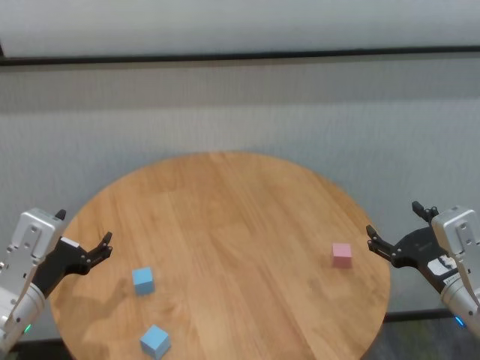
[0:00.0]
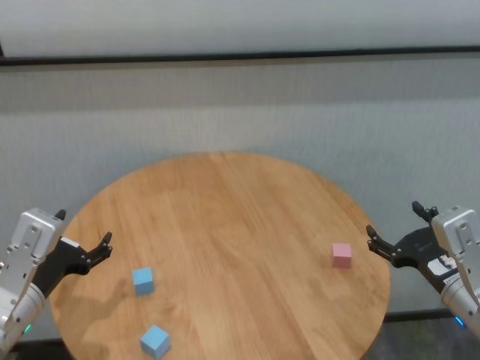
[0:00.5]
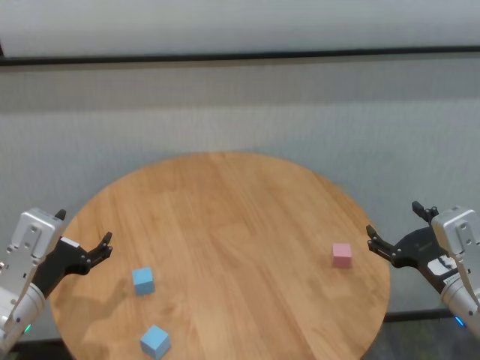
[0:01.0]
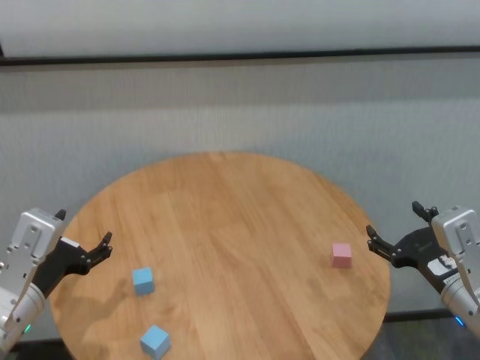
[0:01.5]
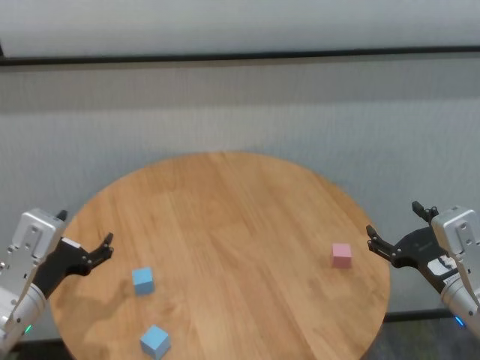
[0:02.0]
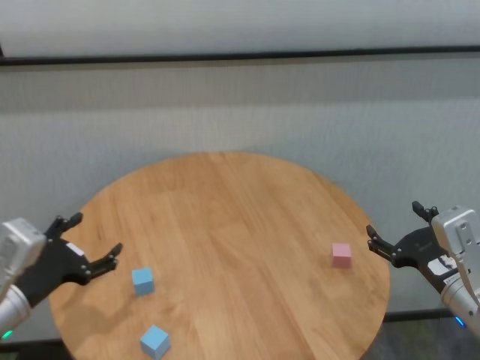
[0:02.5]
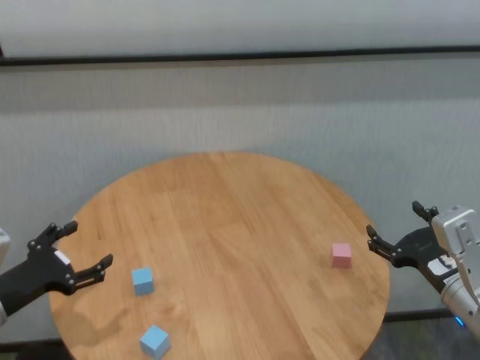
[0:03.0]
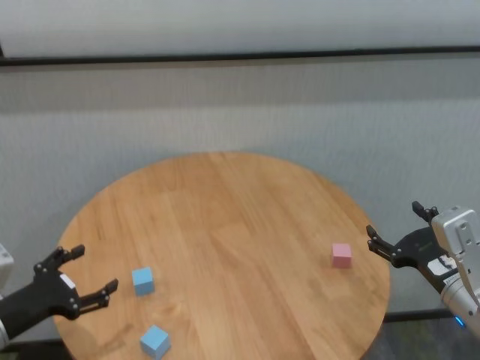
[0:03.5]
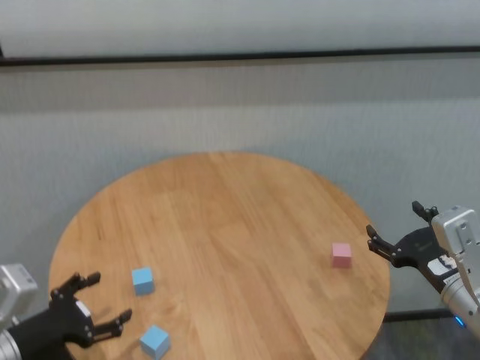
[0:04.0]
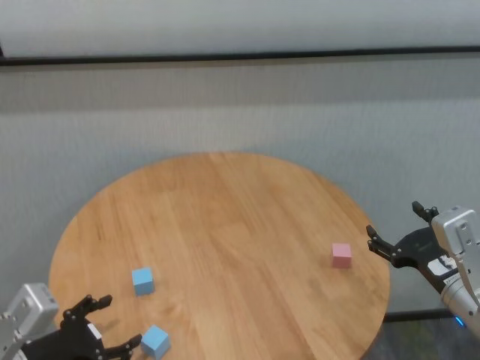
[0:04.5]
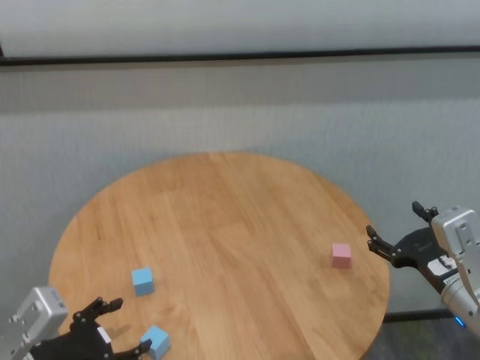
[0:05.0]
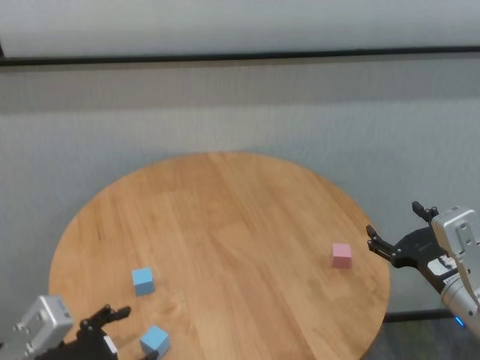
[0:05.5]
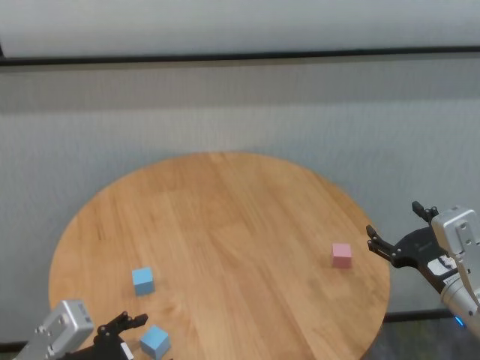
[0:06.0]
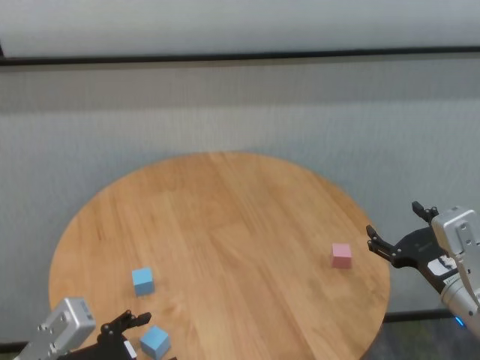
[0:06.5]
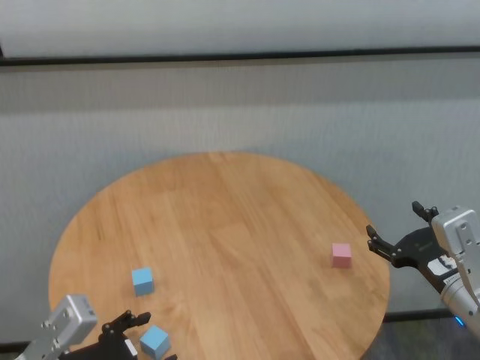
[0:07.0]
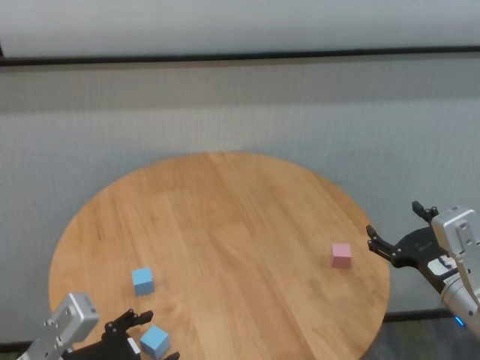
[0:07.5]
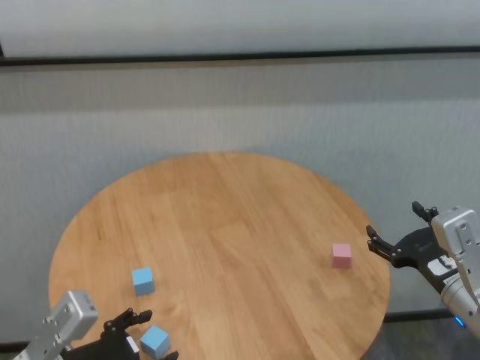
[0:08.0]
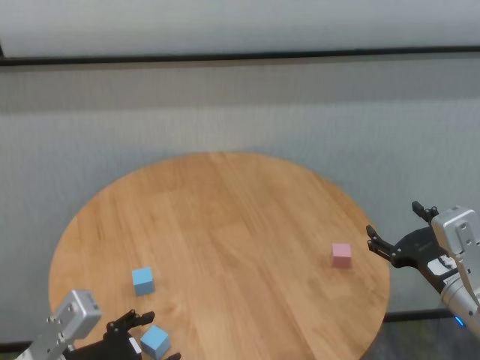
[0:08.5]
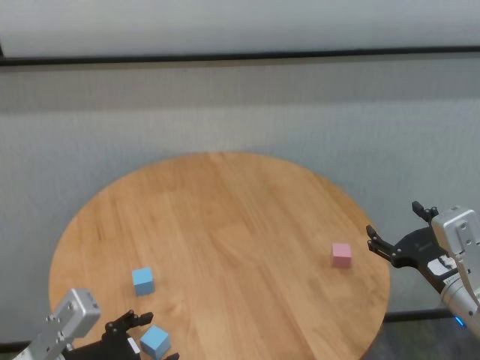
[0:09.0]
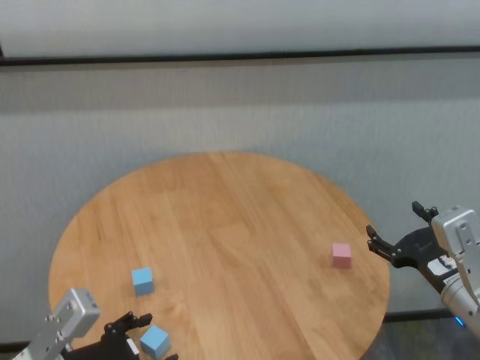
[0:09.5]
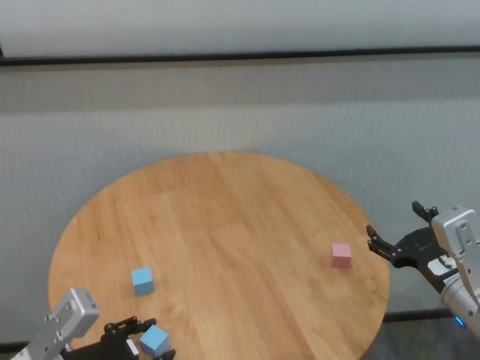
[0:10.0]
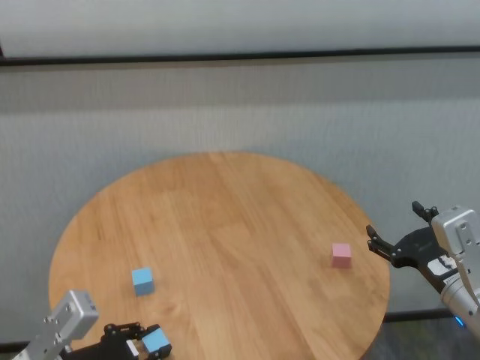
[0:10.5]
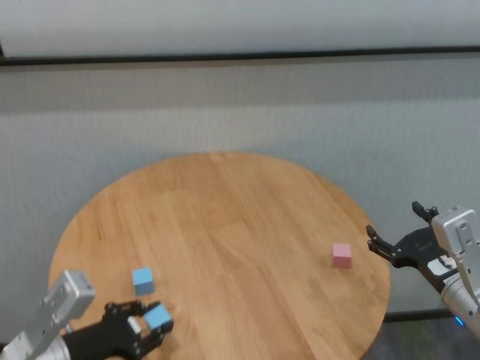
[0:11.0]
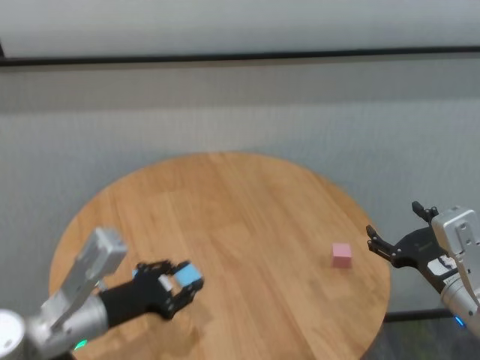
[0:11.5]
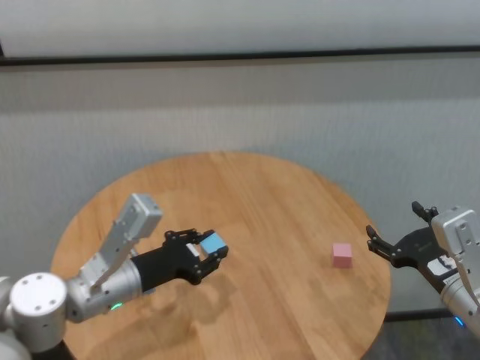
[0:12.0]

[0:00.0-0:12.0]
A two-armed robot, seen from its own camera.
Task of the whole recording: stack building blocks on the table.
Step, 0:00.0 to 0:10.0: Grasp the blue building block with left gripper.

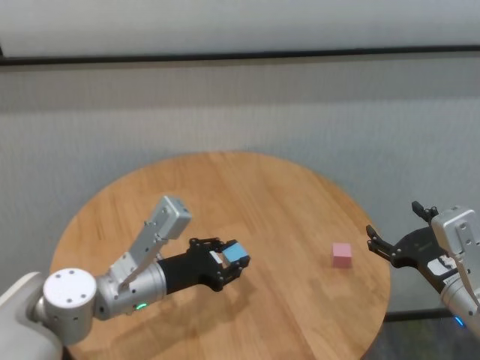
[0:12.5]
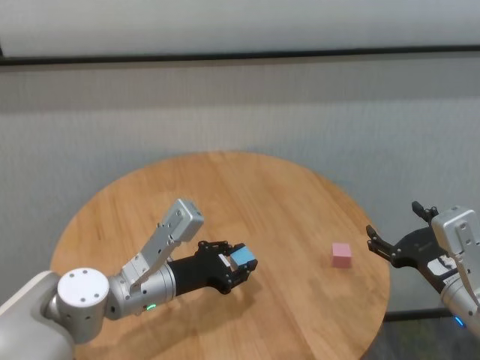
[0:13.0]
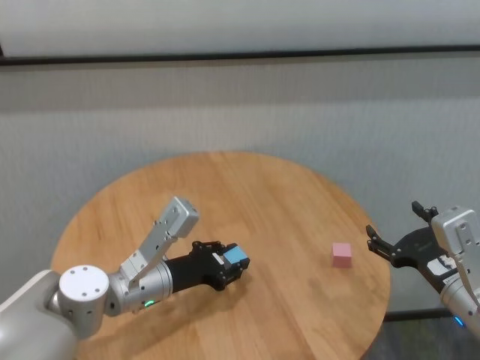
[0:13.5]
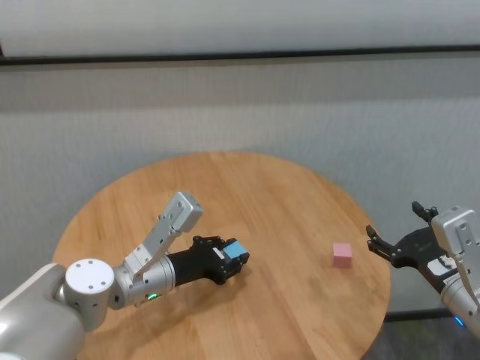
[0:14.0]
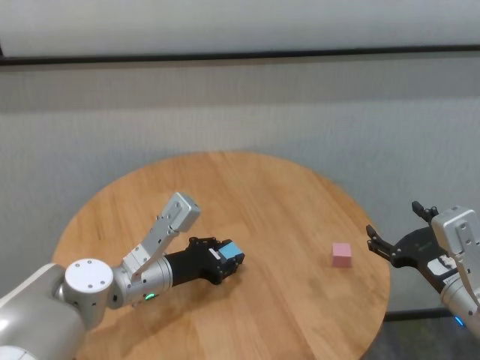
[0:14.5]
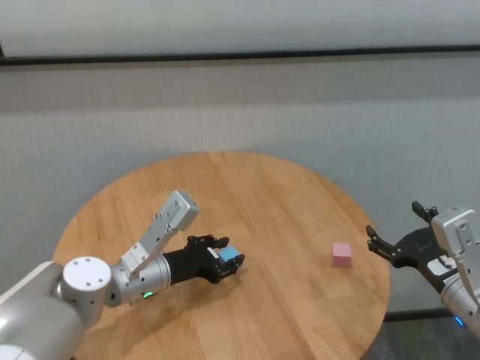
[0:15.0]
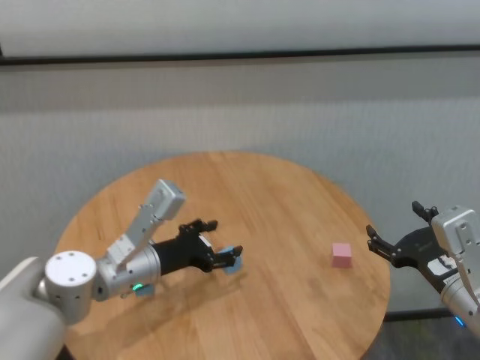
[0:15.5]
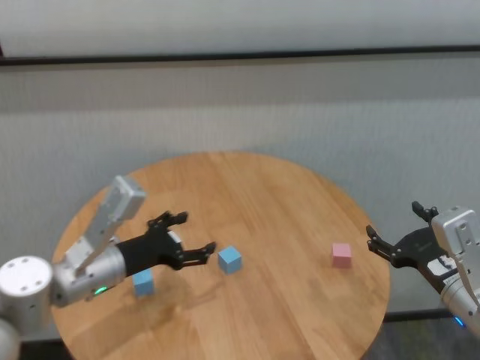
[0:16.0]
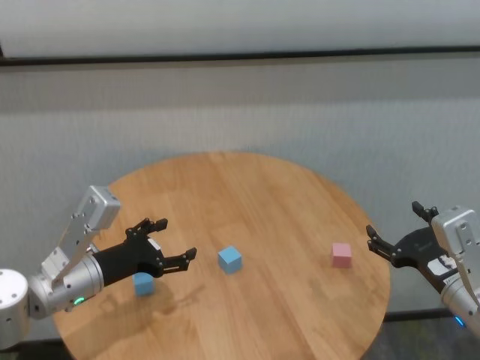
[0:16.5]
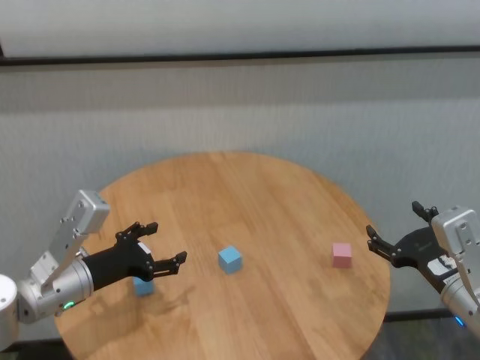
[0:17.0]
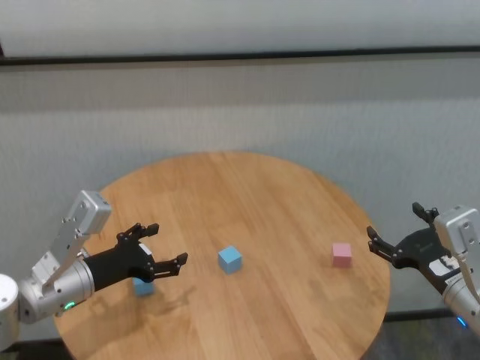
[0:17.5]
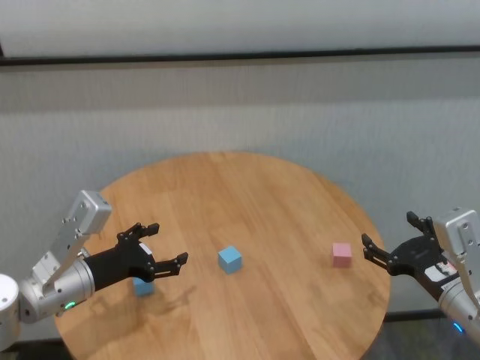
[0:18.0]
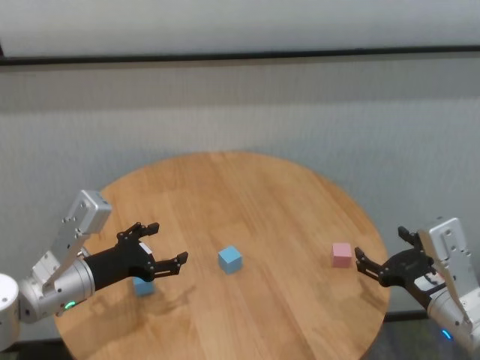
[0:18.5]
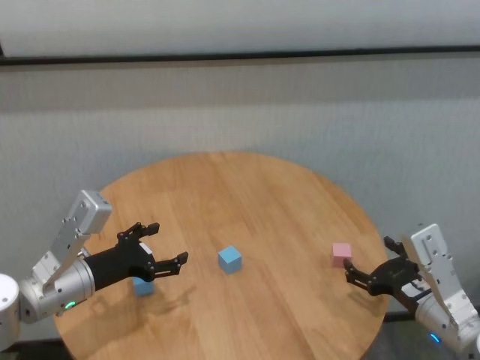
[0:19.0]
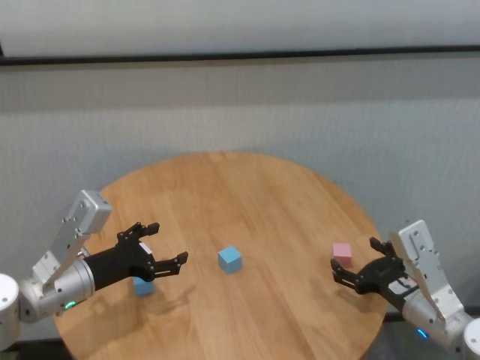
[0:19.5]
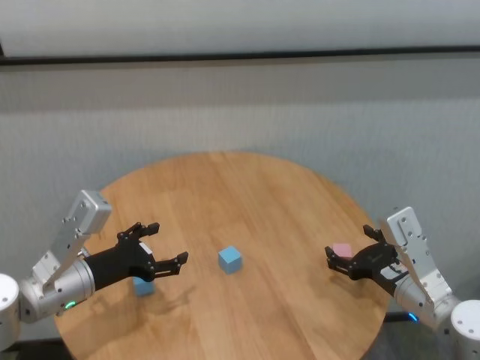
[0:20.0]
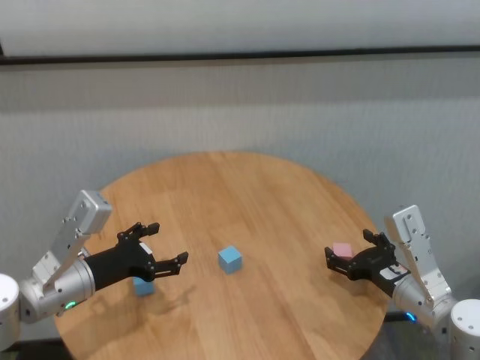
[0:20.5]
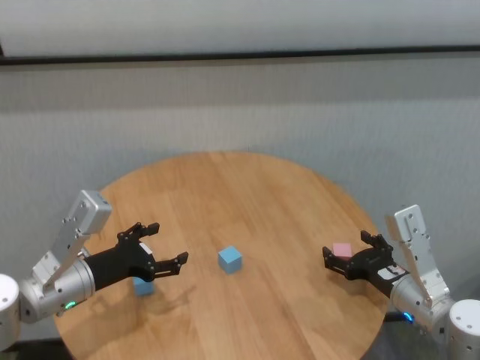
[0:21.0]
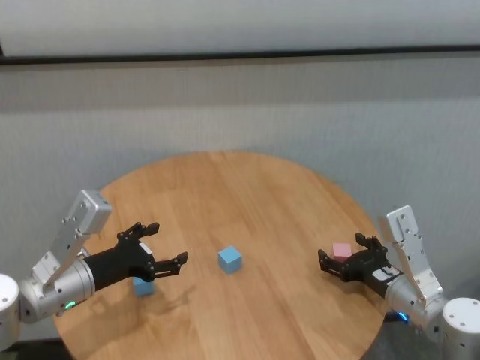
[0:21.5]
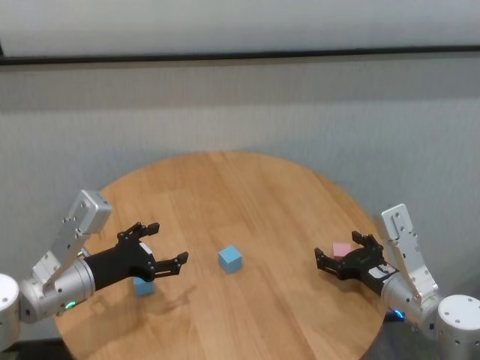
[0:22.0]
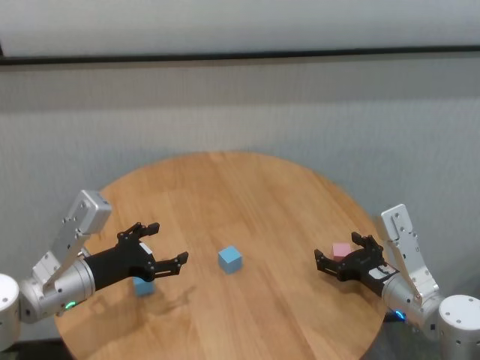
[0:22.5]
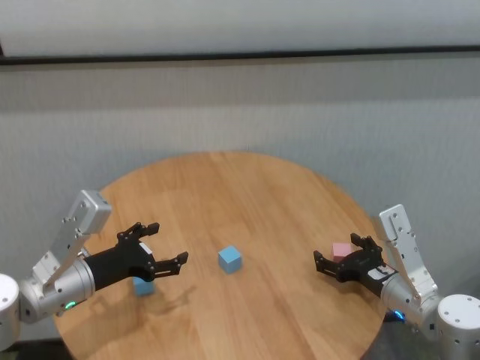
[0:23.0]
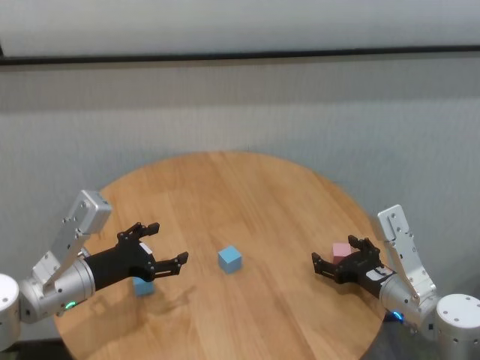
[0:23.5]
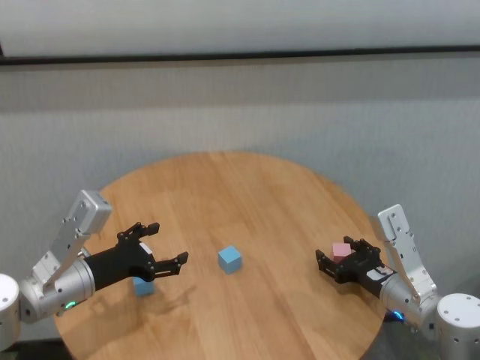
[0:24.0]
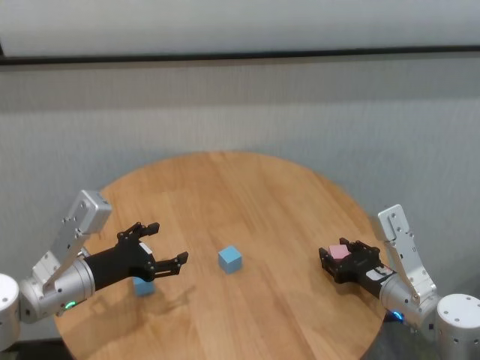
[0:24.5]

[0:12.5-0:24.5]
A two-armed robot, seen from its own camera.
Task of the whole recording: stack building blocks on the table.
Step, 0:12.5 to 0:15.0: Place the blue building block in the center of table with left gripper.
Step, 0:15.5 to 0:24.0: Grasp the pink building block with right gripper.

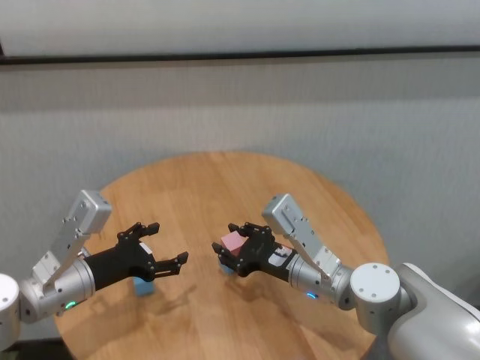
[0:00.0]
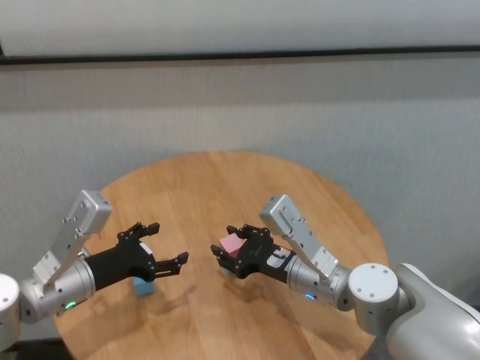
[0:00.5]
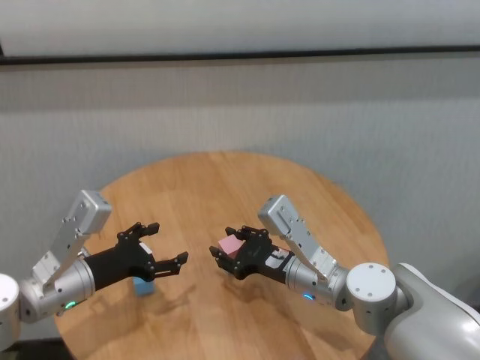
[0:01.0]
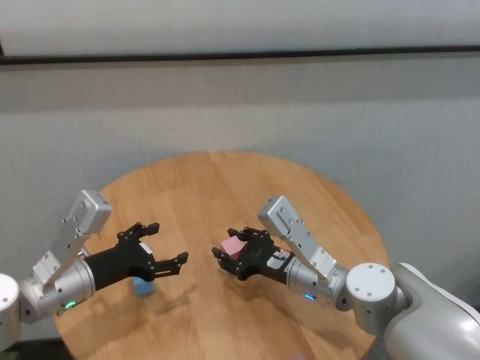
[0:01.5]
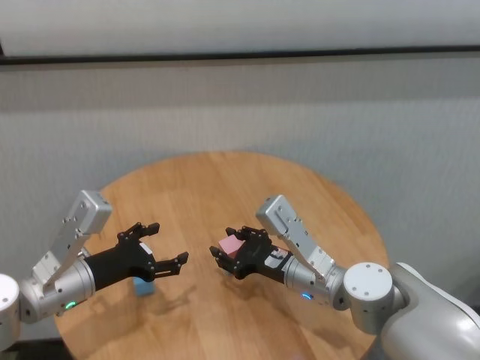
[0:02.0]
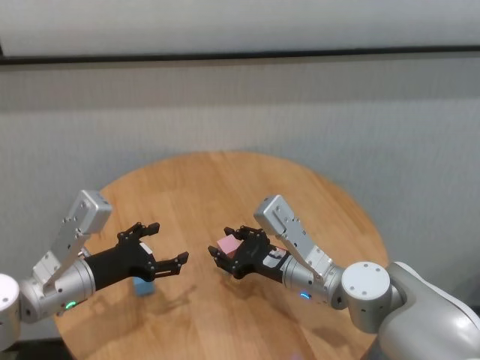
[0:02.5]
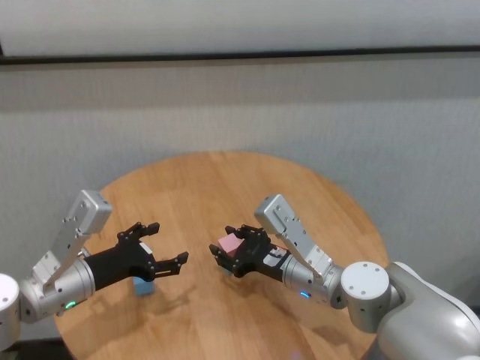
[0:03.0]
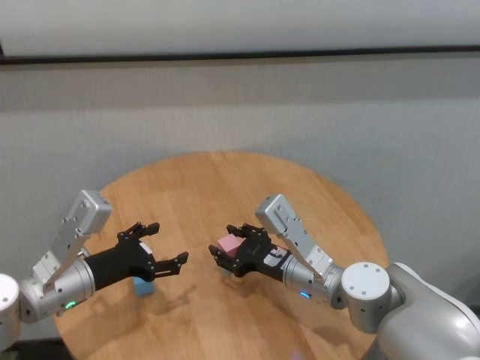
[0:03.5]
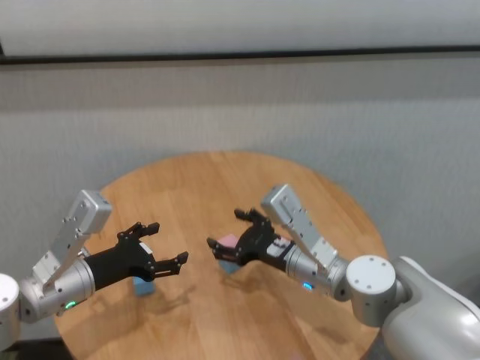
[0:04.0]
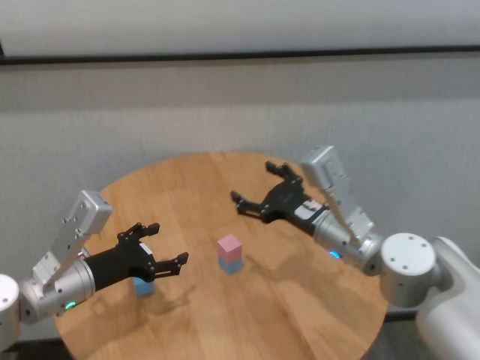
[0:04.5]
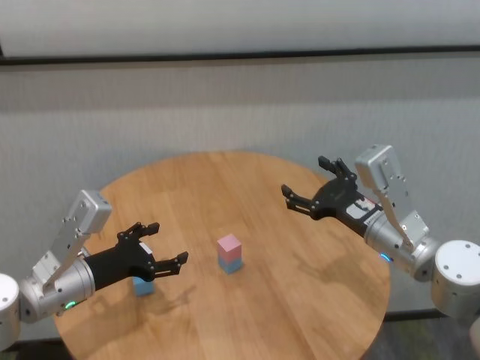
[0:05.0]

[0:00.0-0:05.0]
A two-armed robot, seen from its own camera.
Task of the whole recording: stack building blocks on the table.
Step, 0:00.0 to 0:03.5: Place the pink building block on the blue building blocks with right gripper.
